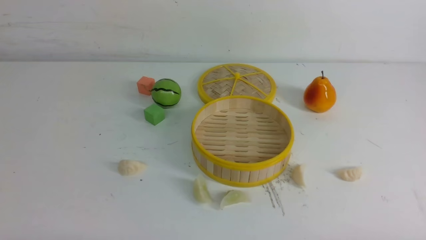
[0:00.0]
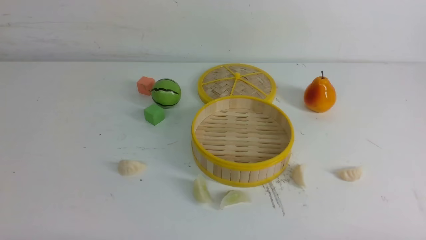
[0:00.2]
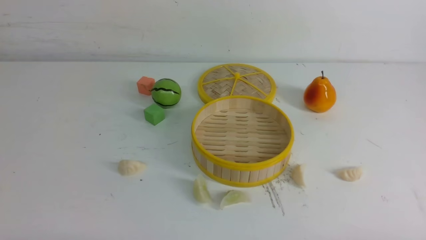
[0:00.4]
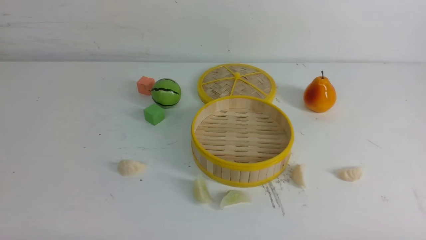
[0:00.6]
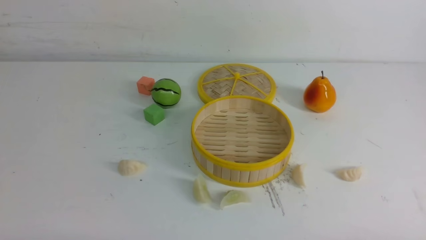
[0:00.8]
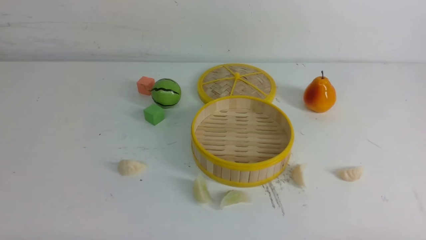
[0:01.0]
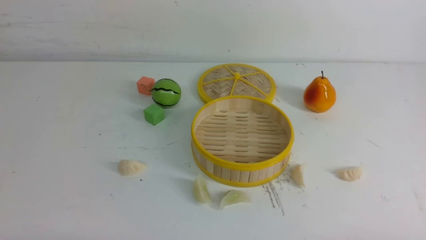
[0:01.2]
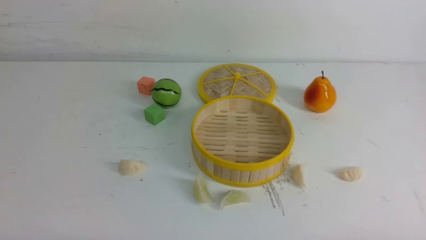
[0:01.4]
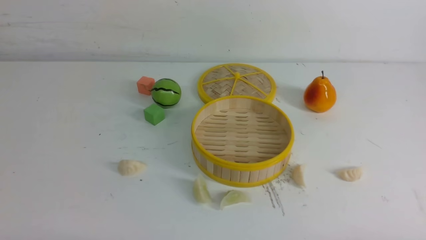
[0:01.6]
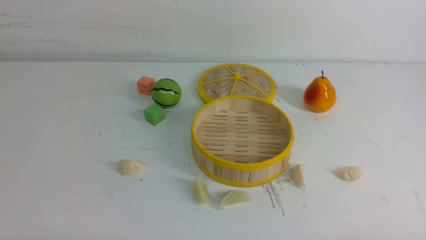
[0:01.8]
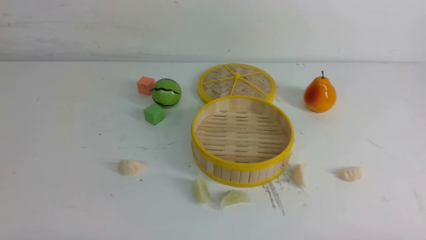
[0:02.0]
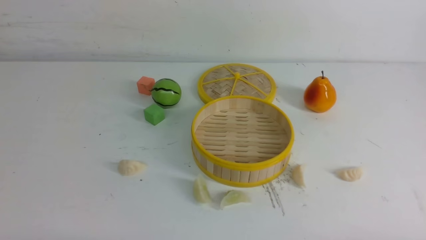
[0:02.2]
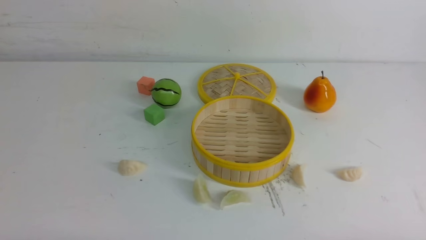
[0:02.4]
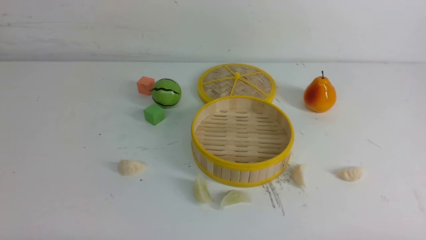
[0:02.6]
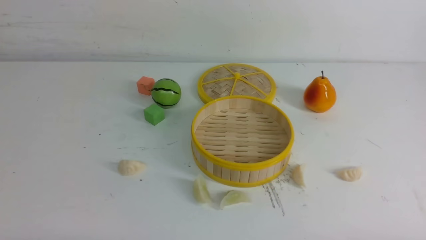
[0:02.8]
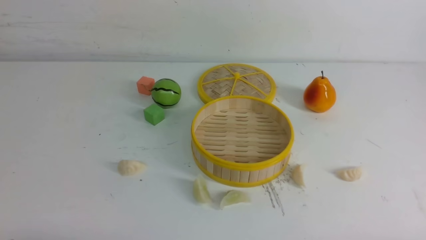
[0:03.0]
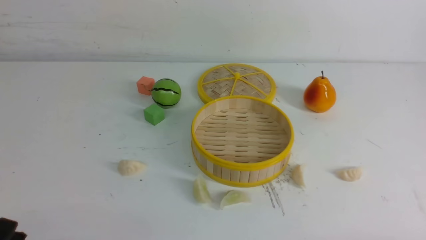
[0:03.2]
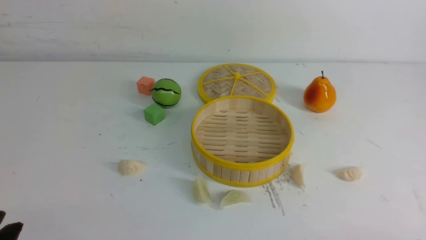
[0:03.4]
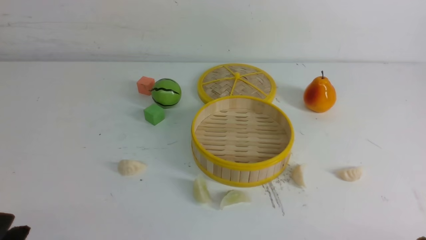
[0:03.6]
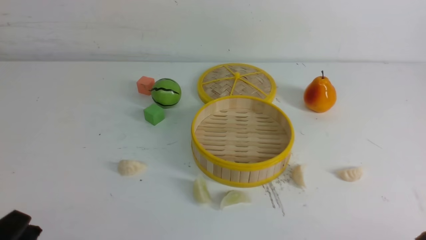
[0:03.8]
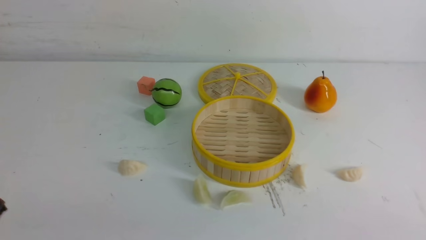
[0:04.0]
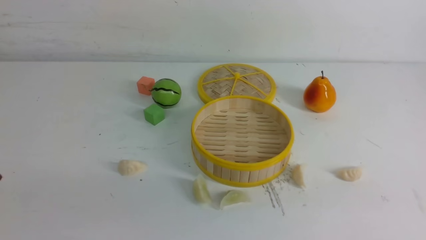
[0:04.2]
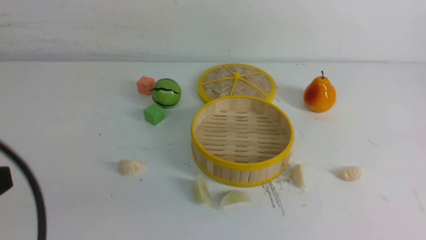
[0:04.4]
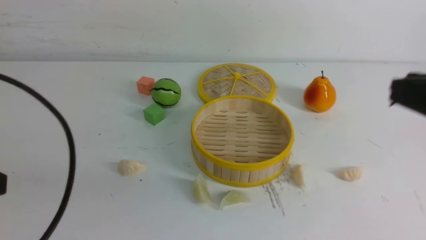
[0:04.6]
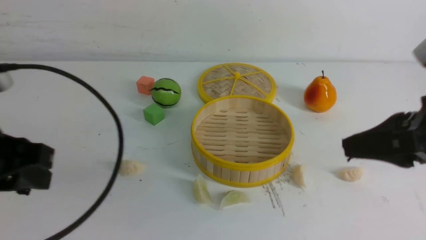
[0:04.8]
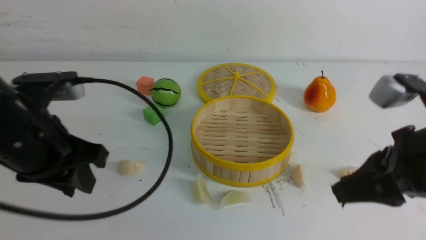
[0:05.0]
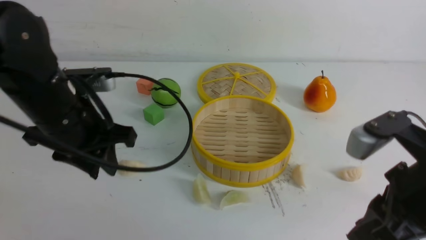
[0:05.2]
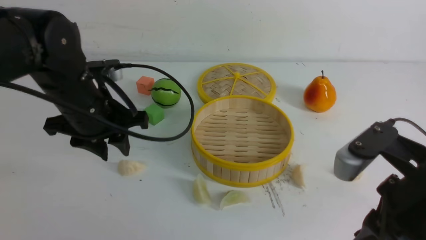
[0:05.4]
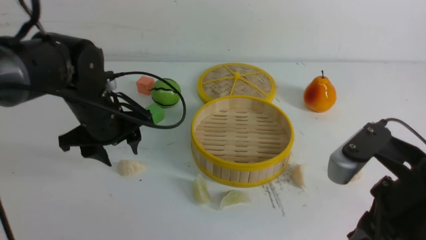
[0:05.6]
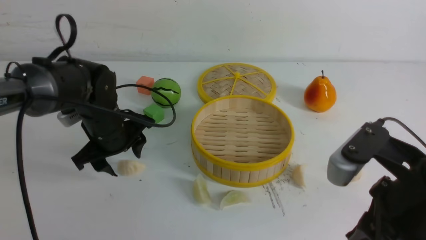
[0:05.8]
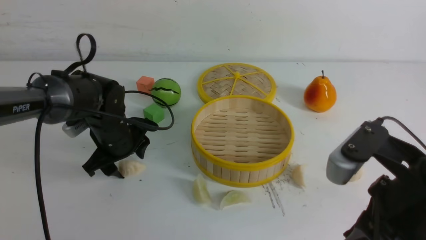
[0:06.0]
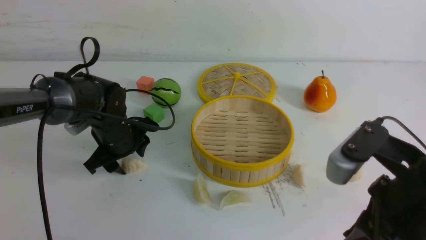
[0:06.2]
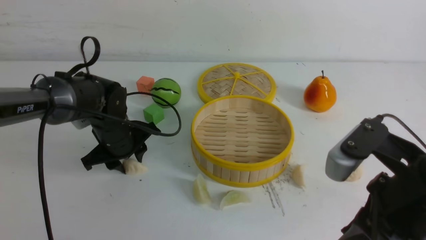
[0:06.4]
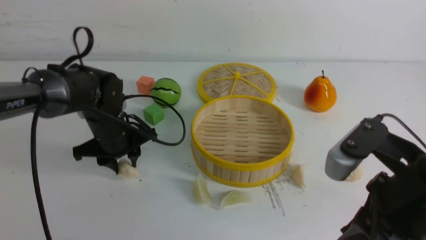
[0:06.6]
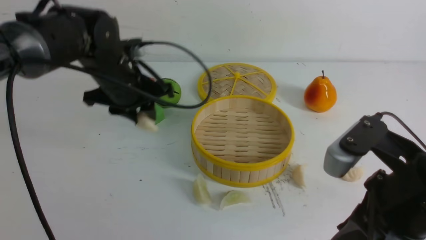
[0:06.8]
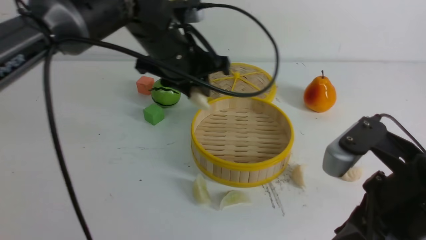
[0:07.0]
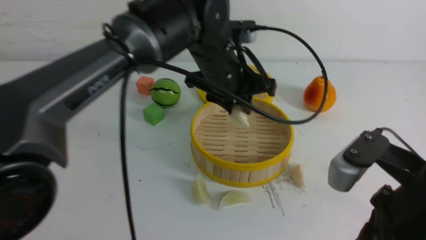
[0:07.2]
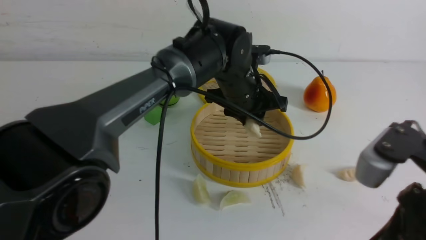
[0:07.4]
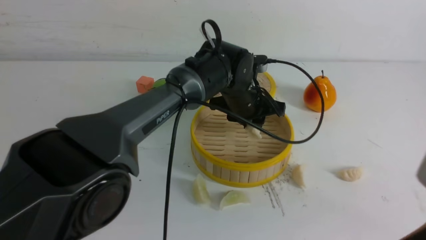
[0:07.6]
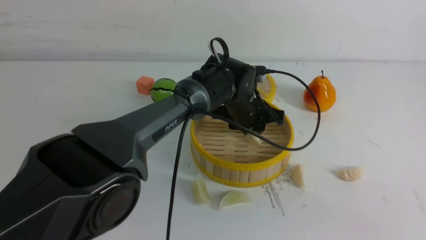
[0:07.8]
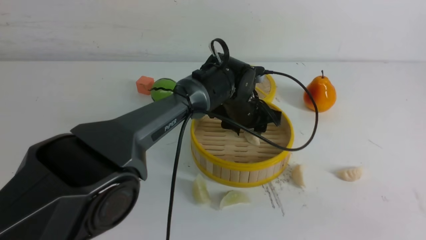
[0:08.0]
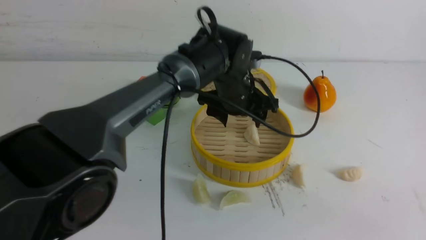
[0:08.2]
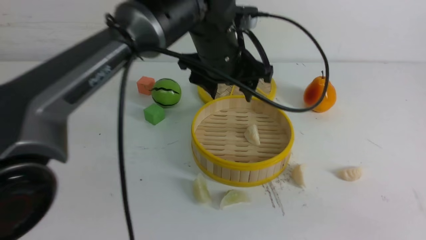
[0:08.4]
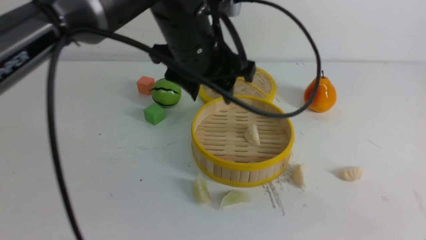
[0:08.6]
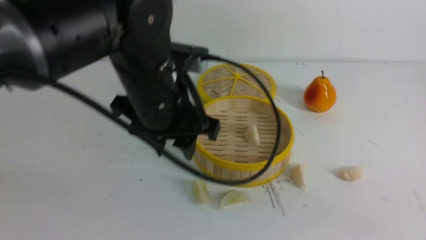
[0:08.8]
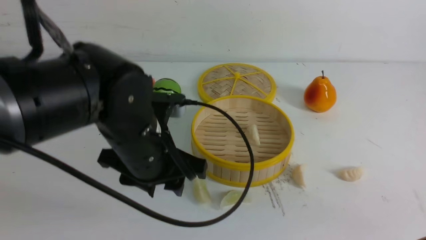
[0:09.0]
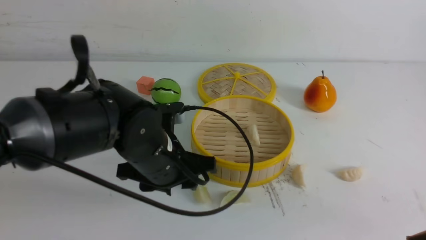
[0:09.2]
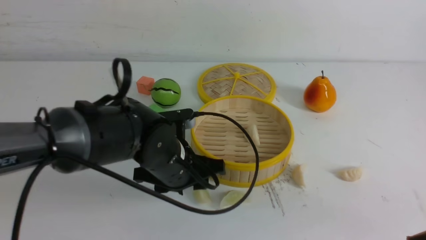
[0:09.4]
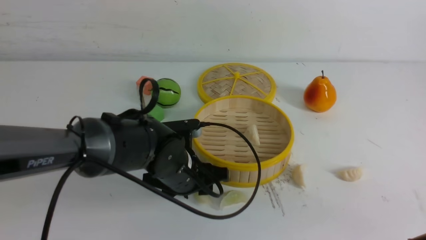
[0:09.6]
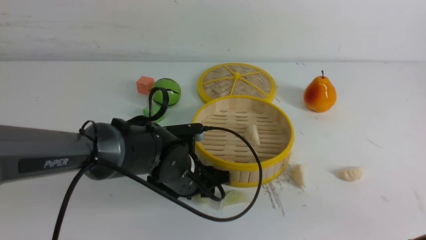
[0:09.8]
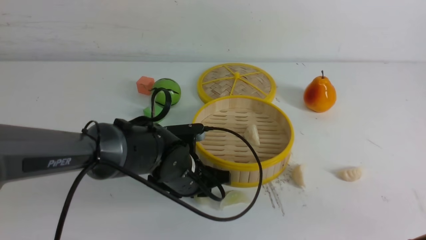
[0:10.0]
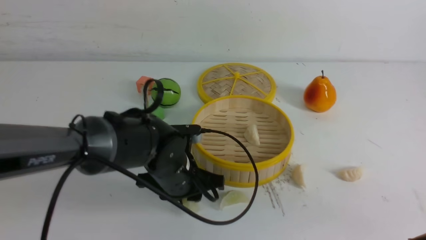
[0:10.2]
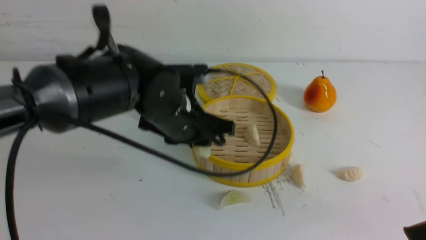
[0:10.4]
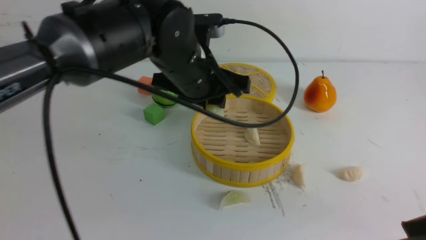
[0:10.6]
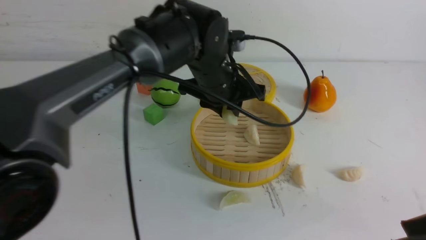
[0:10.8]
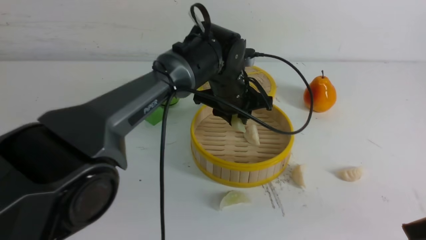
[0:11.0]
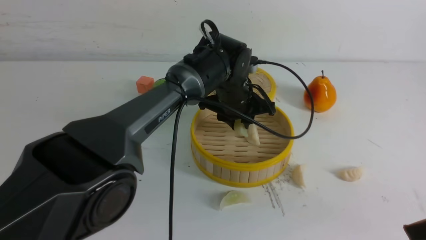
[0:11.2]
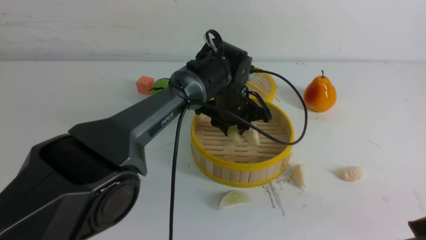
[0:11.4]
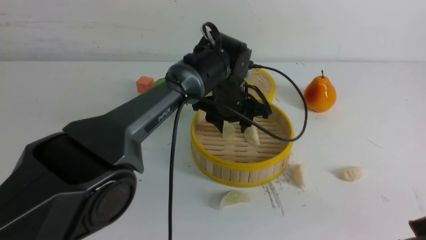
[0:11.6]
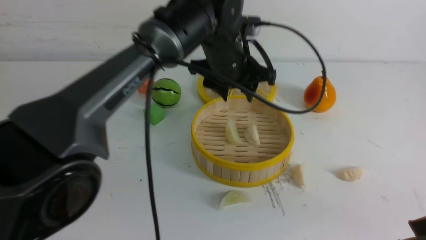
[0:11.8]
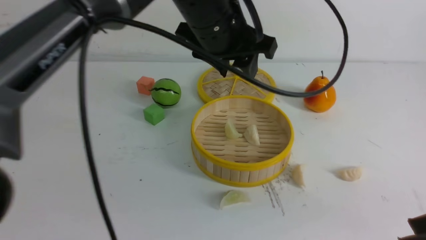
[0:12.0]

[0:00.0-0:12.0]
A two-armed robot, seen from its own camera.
Task of the whole recording: put the dumplings into the steamer on the white table.
Step, 0:00.0 to 0:06.6: use the left arm to grab a dumpling.
Step, 0:06.8 to 0:07.8: use the left arm to put the dumpling into the steamer.
Step, 0:08.0 to 0:10.2: use the left arm to grab a dumpling.
Step, 0:10.4 to 0:11.4: use the left arm to put the dumpling into the steamer.
0:00.0 to 0:01.6: Both grippers stay put.
0:03.0 to 0:04.4: The left gripper shifts some 15 cm upward.
0:04.4 to 0:06.0: The left gripper is displaced forward and downward by roughly 35 cm, and opens its fingers; the right gripper moves to the left, downward and forward, approximately 15 cm.
0:06.0 to 0:07.6: The right gripper shifts about 5 cm backward, while the left gripper goes roughly 20 cm to the right, and closes its fingers.
0:07.6 to 0:09.0: The left gripper is displaced backward and to the left by approximately 20 cm.
0:09.0 to 0:10.4: The left gripper heads forward, covering some 5 cm, and travels downward and back again, some 10 cm each way.
0:10.4 to 0:12.0: The left gripper swings up and down, approximately 15 cm each way, with 2 reversals, and opens its fingers.

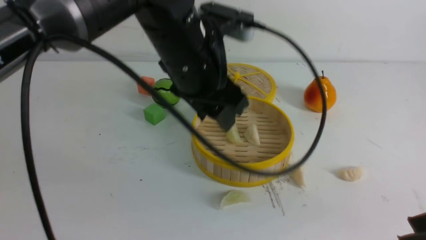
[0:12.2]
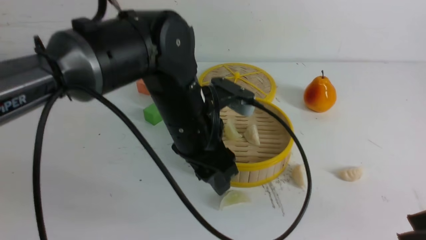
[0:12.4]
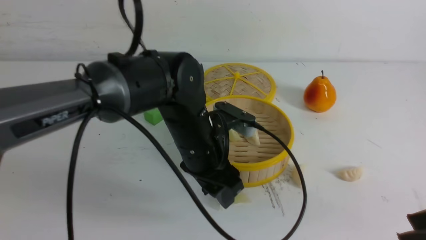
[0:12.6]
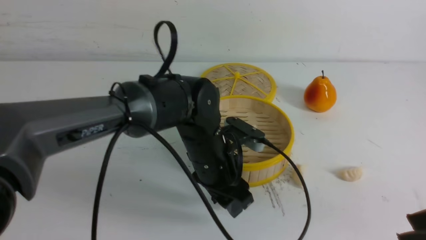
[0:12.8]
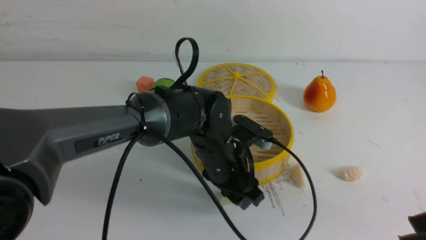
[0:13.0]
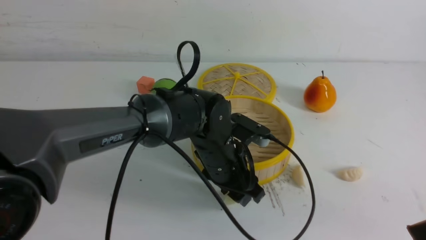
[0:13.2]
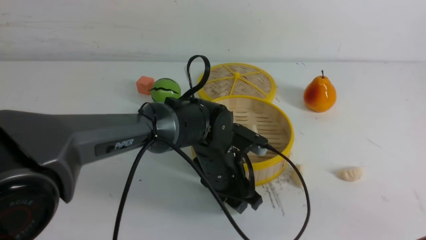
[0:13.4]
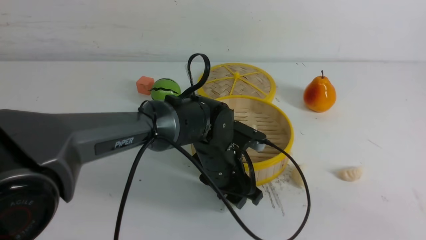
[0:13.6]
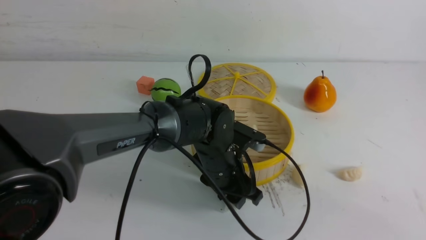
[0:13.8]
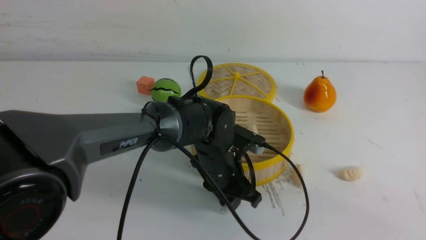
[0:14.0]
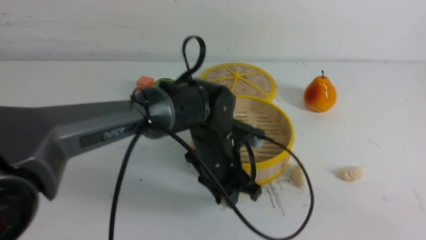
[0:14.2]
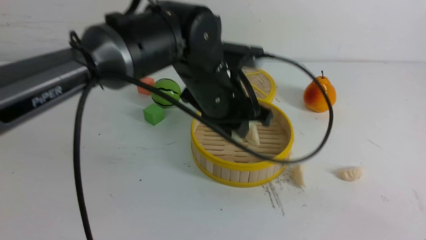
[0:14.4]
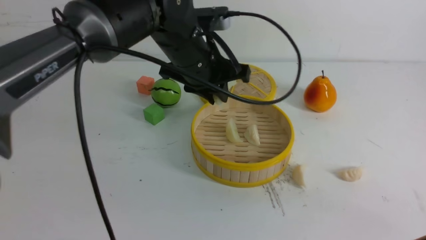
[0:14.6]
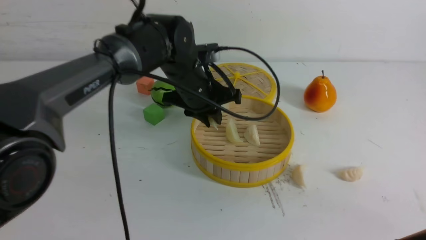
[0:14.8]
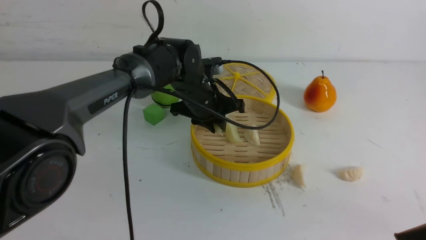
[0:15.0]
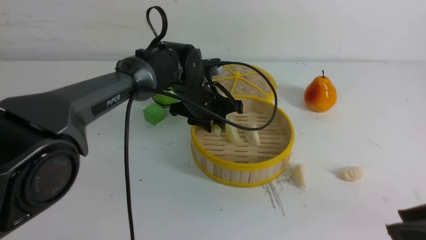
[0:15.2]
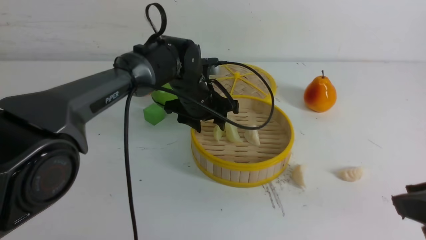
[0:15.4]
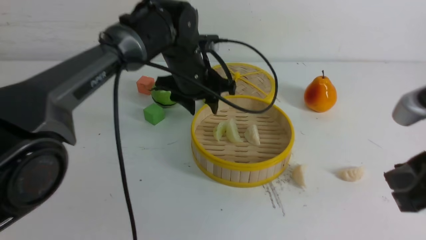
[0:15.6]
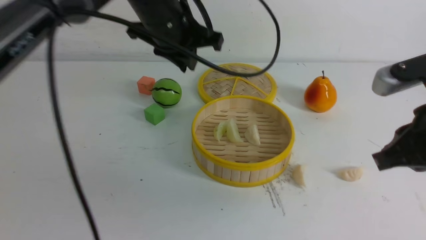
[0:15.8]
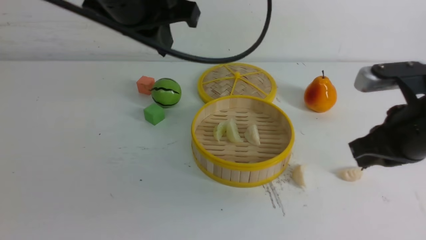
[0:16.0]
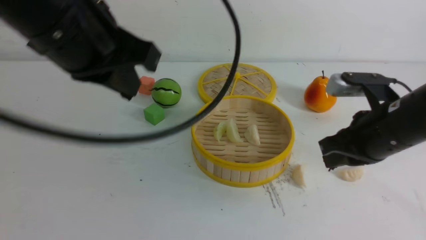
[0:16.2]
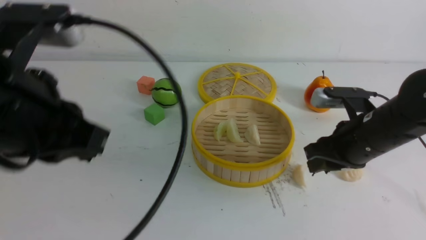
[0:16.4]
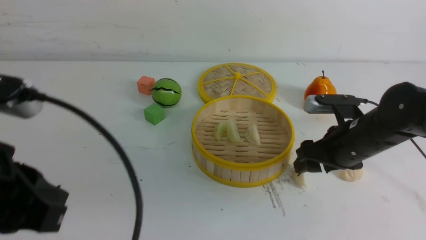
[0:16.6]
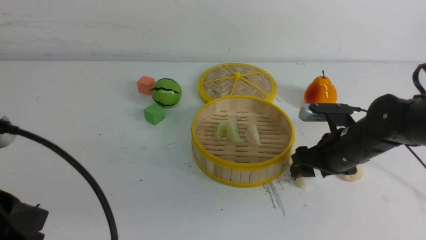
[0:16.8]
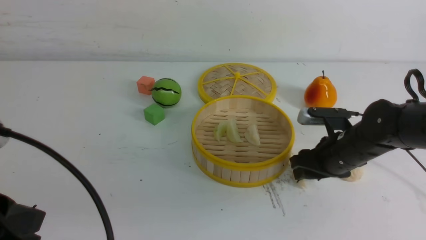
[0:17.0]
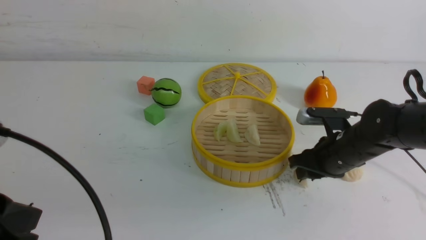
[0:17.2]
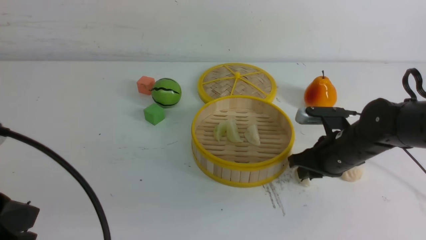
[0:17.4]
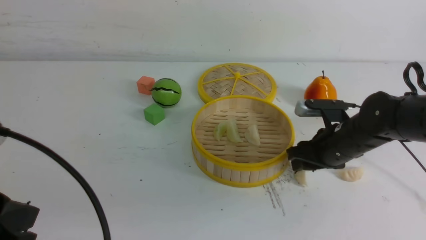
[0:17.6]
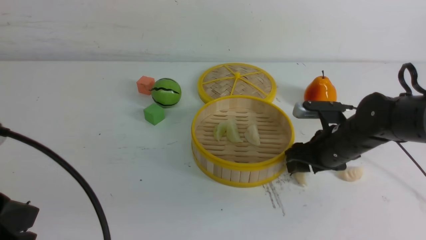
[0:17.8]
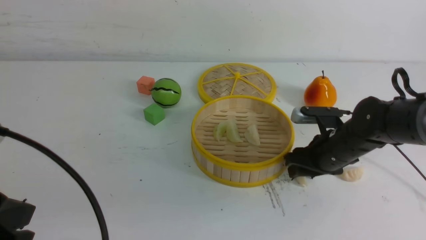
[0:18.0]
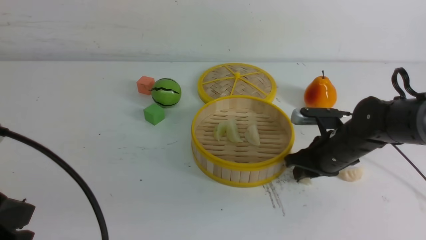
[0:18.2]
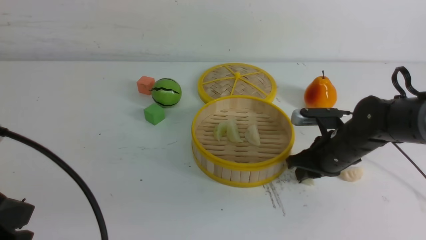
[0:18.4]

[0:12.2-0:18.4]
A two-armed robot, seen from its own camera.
Task of the whole recording: put the dumplings into the steamer on the white table.
Step, 0:12.2 to 0:14.0: use the left arm to grab a dumpling.
Step, 0:14.2 to 0:15.2: use the left arm to put the dumpling into the steamer.
Step, 0:15.4 to 0:18.2: use the right arm to grab a dumpling.
0:12.2 to 0:13.8: The left gripper moves downward, approximately 20 cm.
0:13.8 to 0:15.4: The left gripper shifts approximately 15 cm forward and upward.
0:15.4 to 0:16.8: The right gripper heads forward and downward, covering approximately 25 cm, and opens up. The left gripper moves backward and to the left, about 35 cm, and closes.
0:16.8 to 0:18.4: The right gripper closes its fingers.
